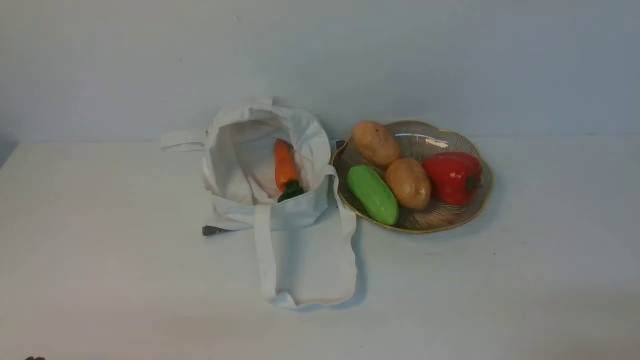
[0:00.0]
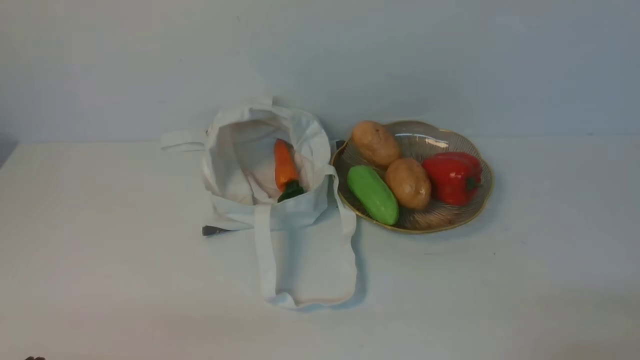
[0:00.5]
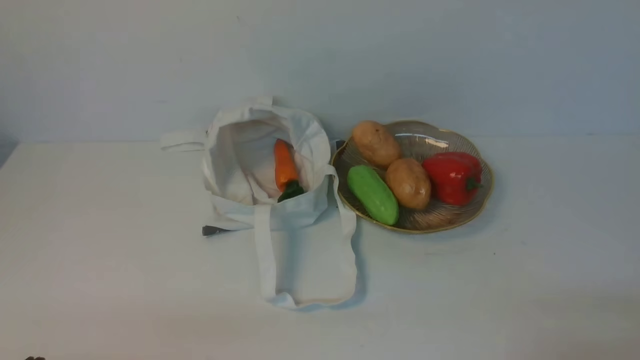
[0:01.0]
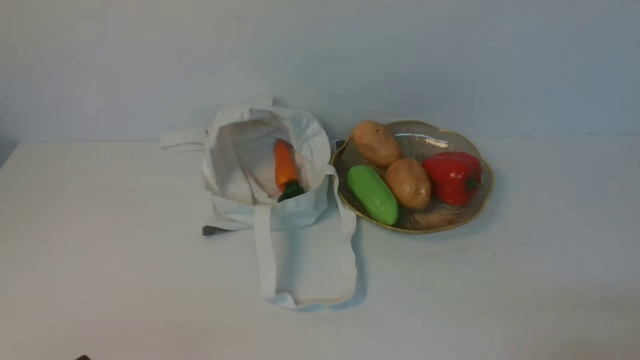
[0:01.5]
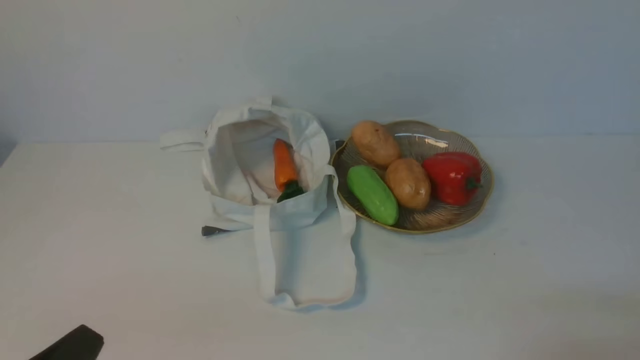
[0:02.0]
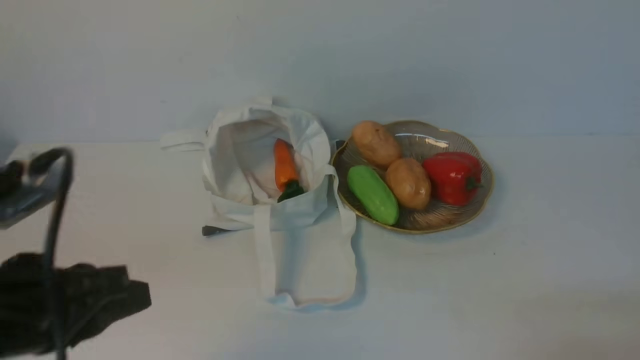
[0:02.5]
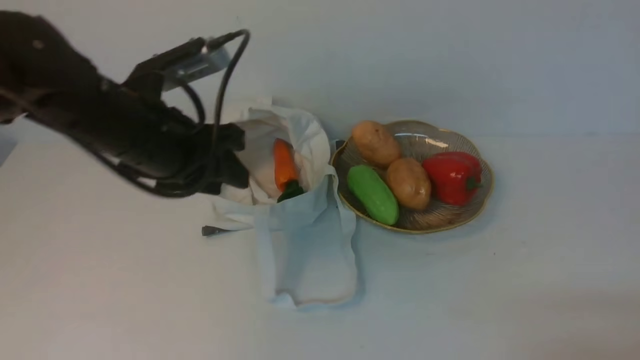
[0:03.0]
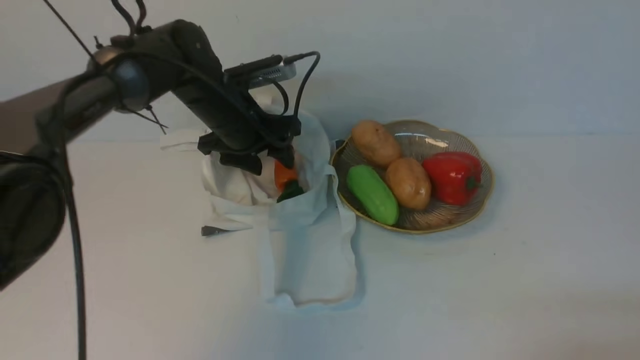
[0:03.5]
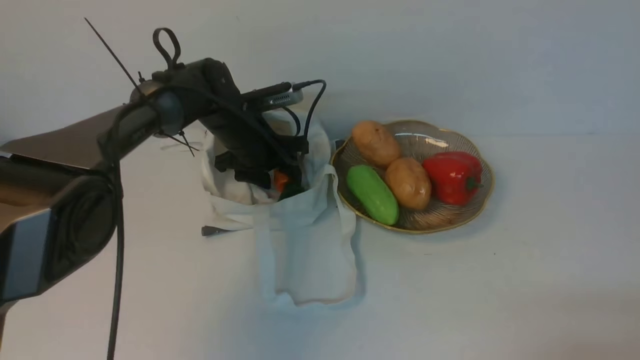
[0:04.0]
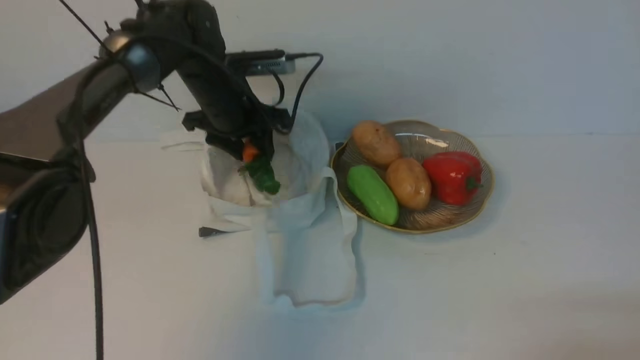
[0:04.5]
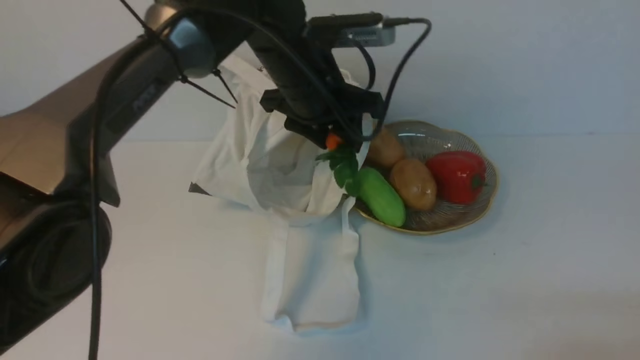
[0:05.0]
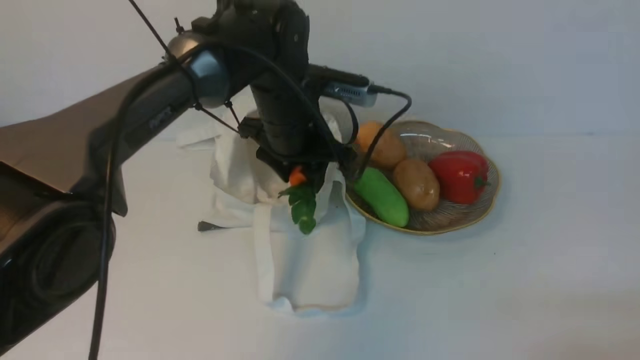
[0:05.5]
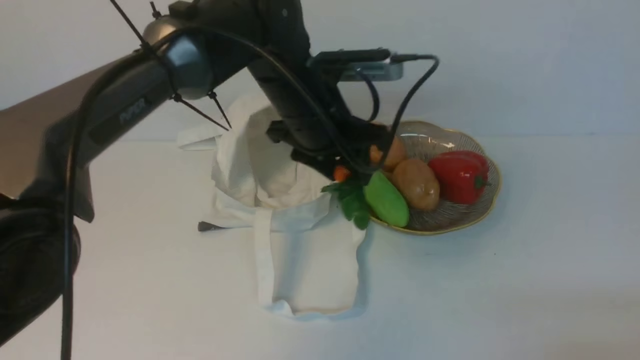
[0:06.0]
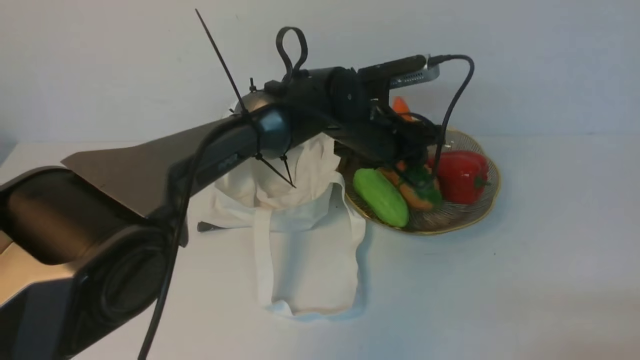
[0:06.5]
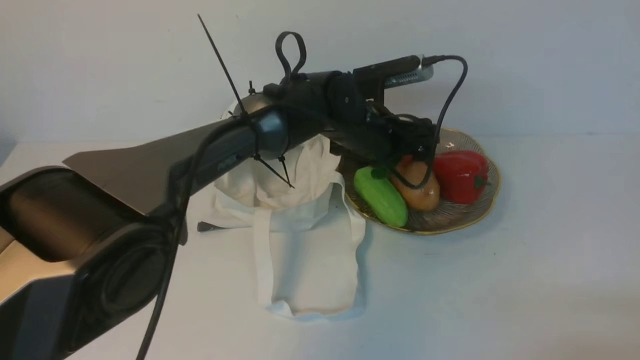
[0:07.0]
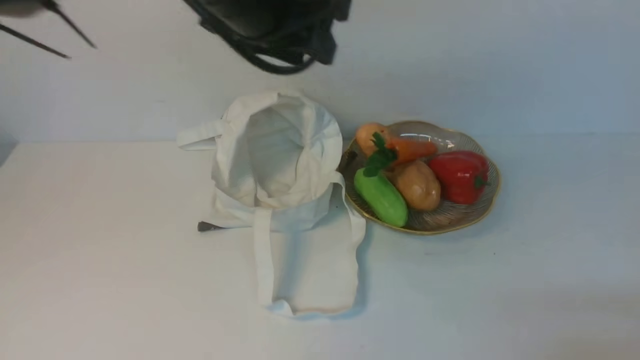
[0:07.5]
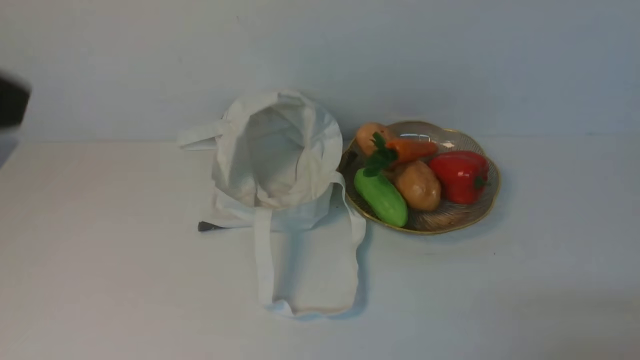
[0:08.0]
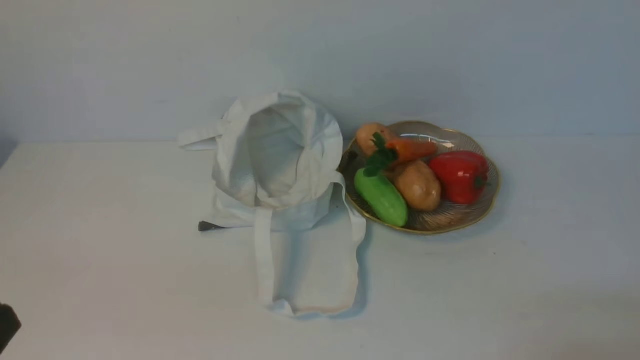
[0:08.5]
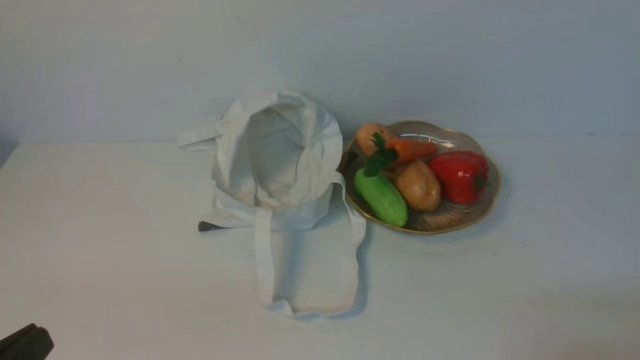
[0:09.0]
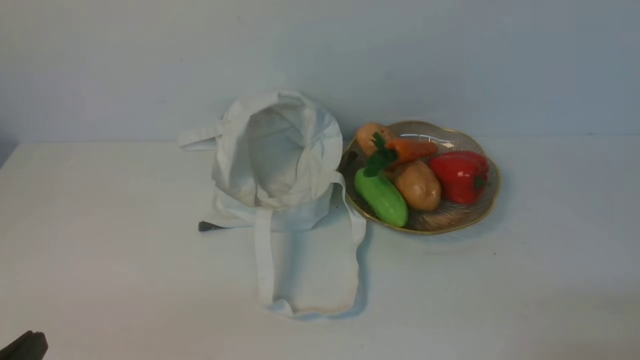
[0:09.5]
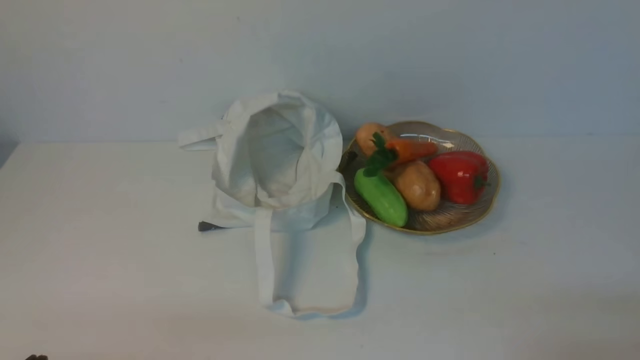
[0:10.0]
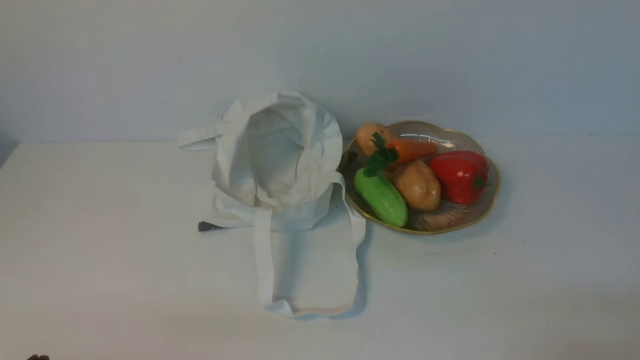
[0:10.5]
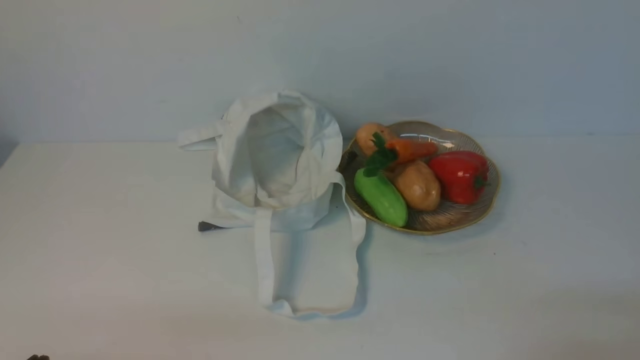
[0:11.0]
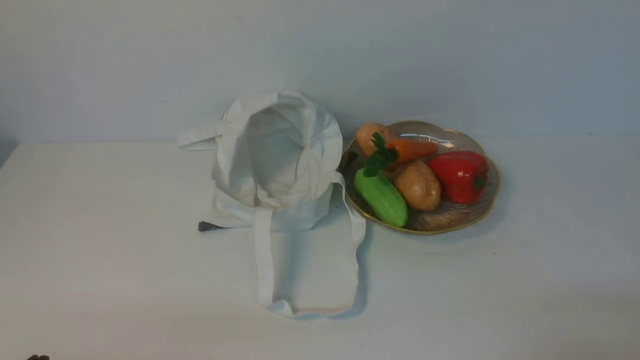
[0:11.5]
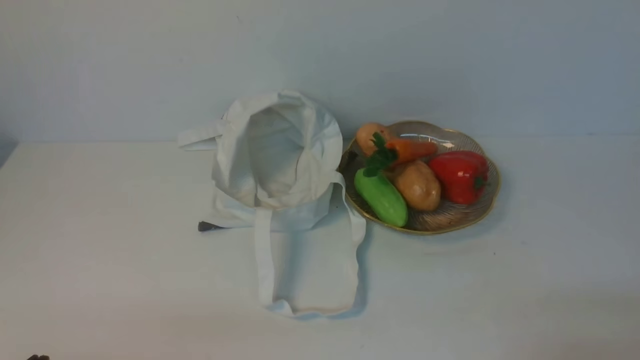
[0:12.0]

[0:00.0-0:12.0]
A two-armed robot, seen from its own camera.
Task of the whole recording: take vegetables from cloth bag on white table place on plate.
Step, 0:00.0 to 0:04.0: Grasp the carrot with left gripper.
Step, 0:04.5 to 0:07.0: Place the carrot on the plate with left gripper.
0:02.0 to 0:04.0: The left gripper is displaced forward by roughly 40 cm, and opens.
0:04.0 to 0:06.0: The left gripper shifts about 15 cm backward, upward and to the right.
0:06.0 to 0:08.0: The left gripper is displaced backward, upward and to the left by about 40 cm, and closes up.
0:08.0 to 0:10.0: The left gripper moves downward, about 30 cm.
0:10.0 to 0:12.0: Both grippers stay about where they are.

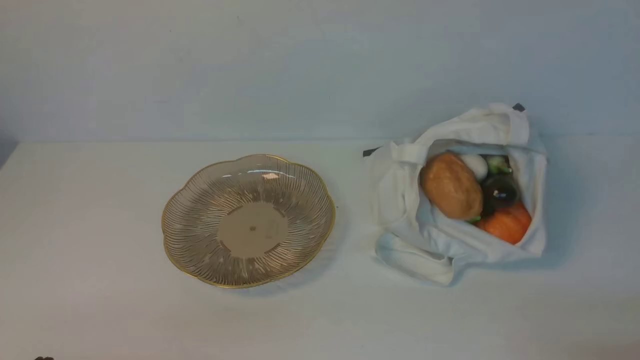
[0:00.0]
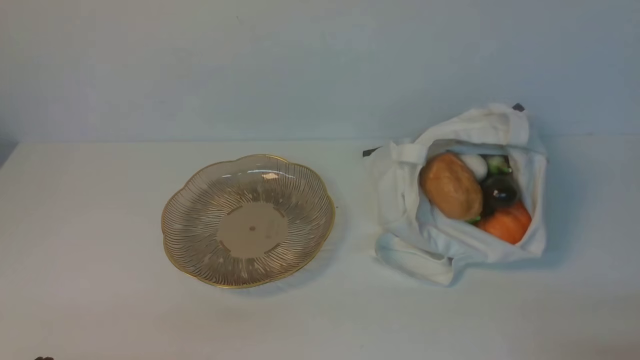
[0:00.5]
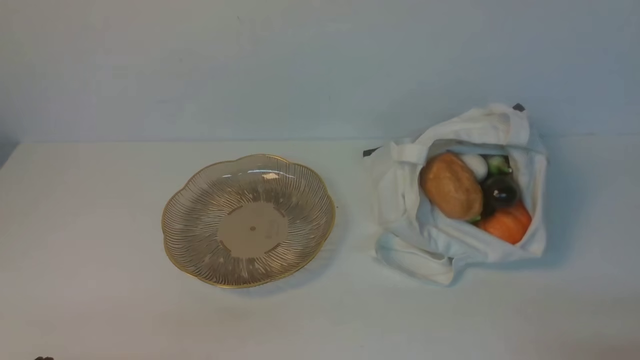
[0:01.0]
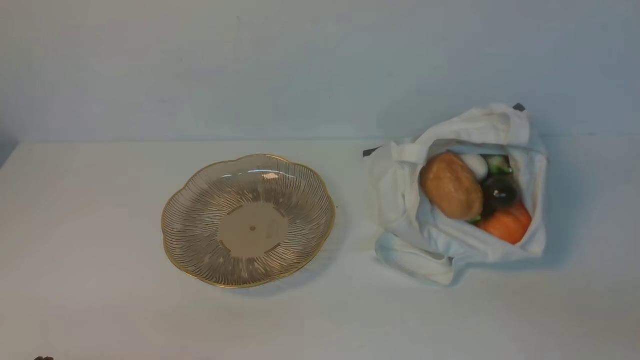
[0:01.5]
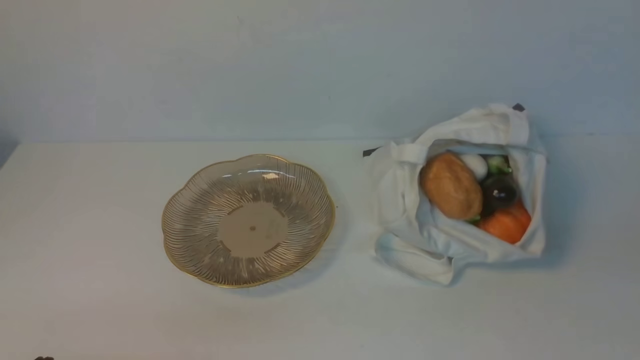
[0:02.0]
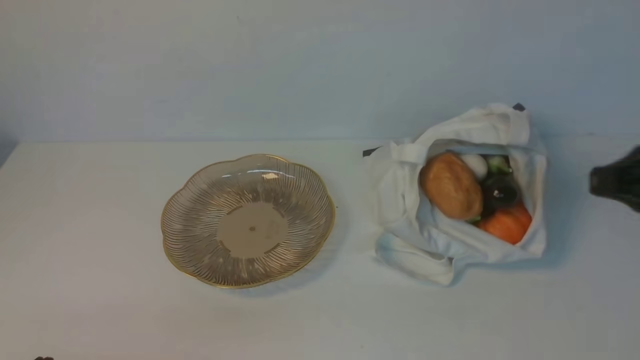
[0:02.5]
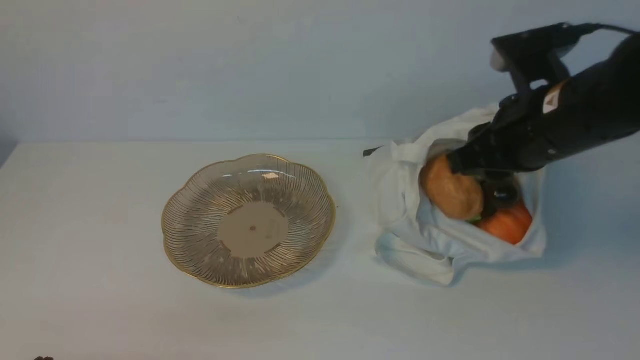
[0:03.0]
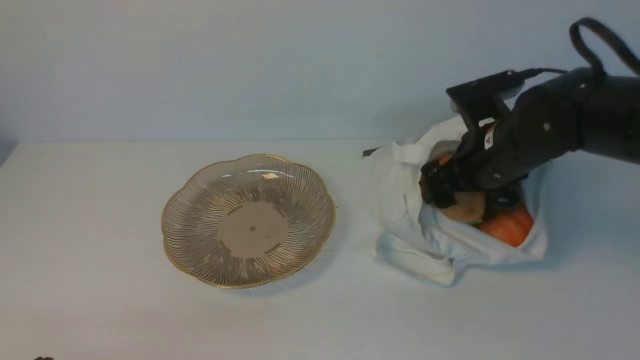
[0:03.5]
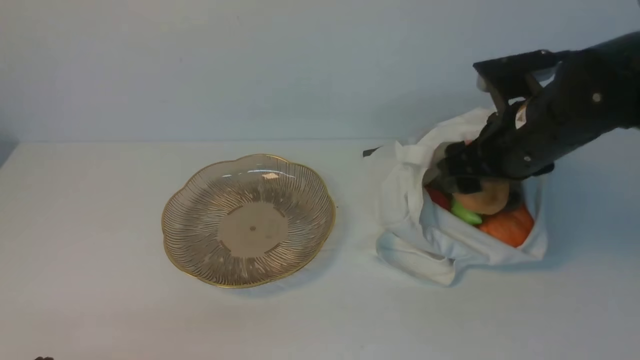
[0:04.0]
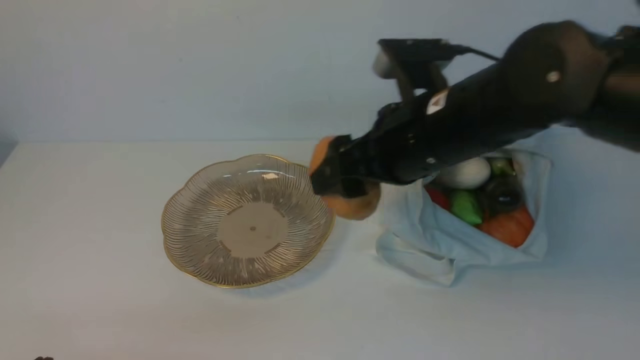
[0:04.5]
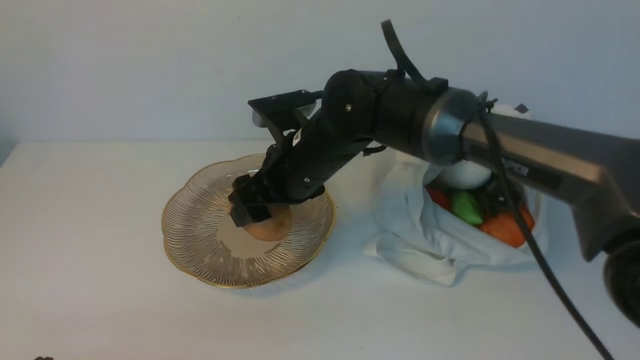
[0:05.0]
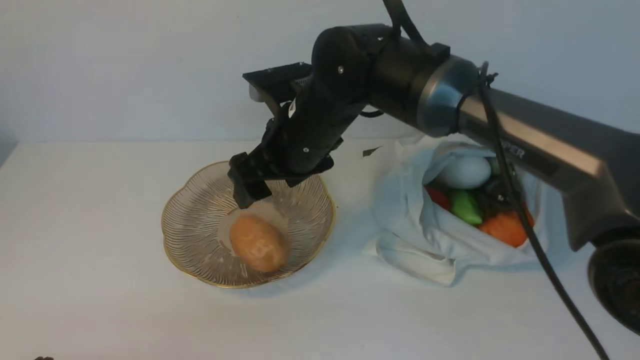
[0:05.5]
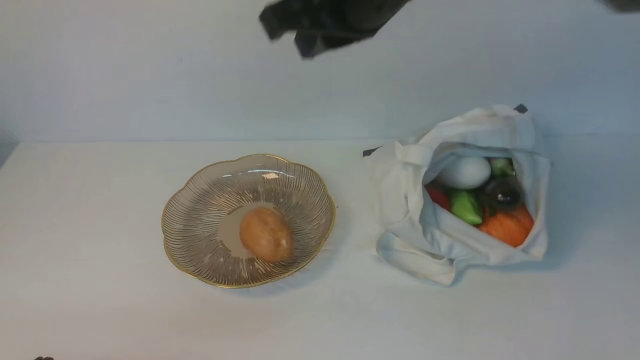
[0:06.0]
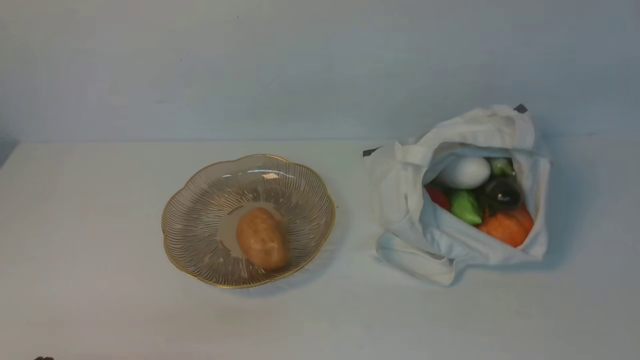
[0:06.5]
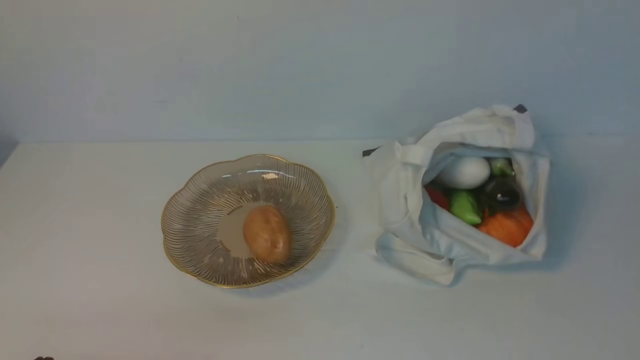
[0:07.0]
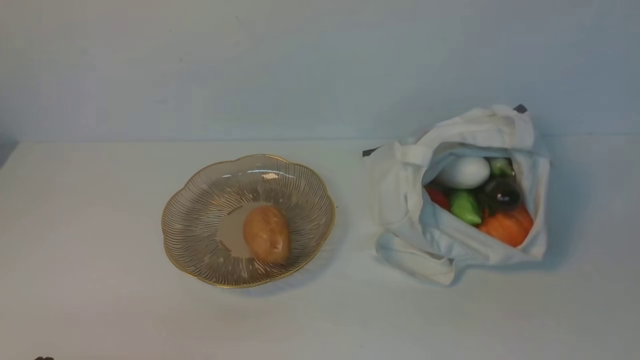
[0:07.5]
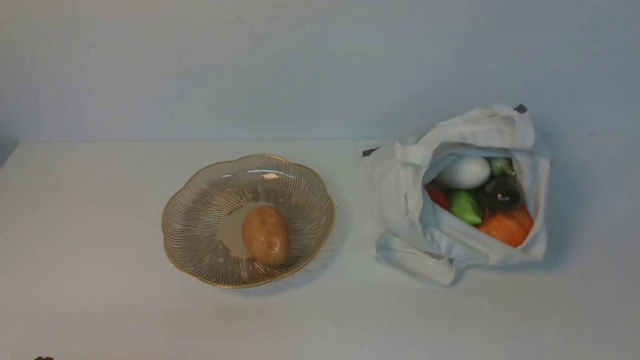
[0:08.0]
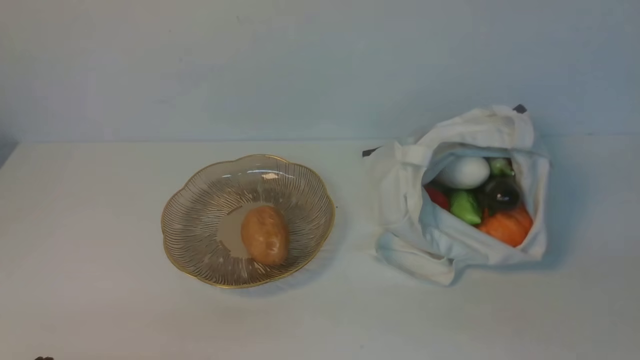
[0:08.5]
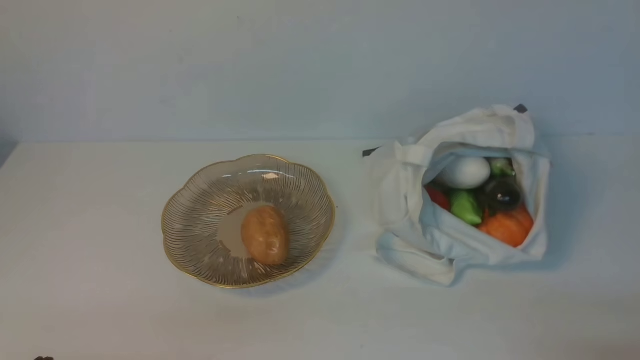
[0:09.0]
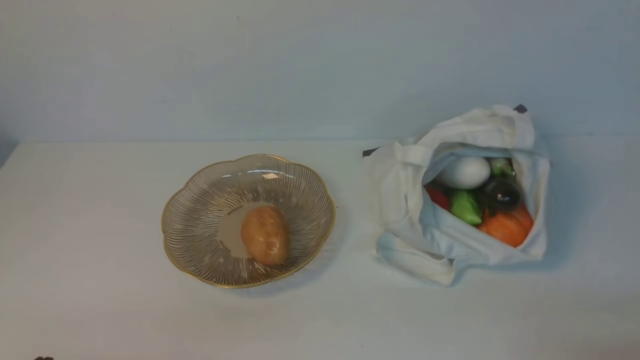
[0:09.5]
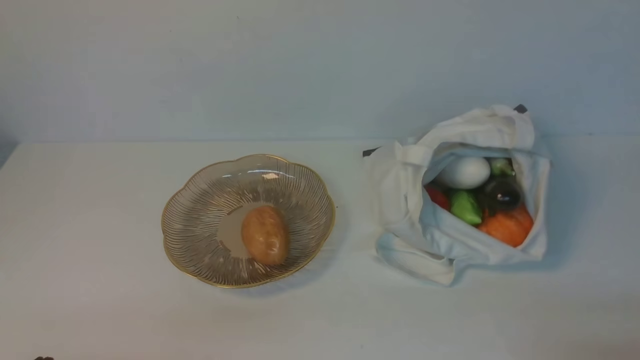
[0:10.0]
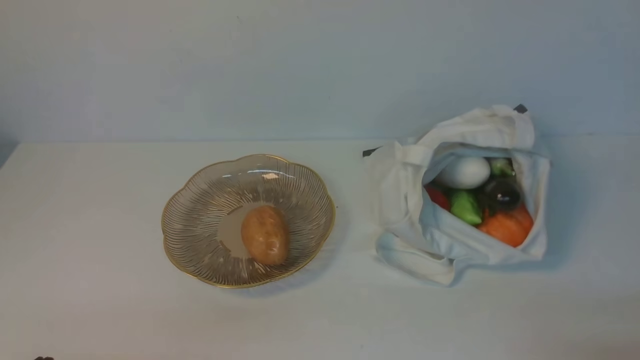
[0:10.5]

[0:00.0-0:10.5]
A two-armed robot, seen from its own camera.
Task of the whole recording: take vegetables from cloth bag on white table place on plate.
Step, 0:00.0 to 0:03.5: Grasp the potato with right gripper.
Step, 0:04.0 to 0:05.0: Place the potato on the plate with right gripper.
0:02.0 to 0:04.0: The right gripper goes roughly 25 cm forward and to the left, and opens up.
0:04.0 to 0:06.5: The right gripper shifts roughly 30 cm upward and backward, and closes up.
